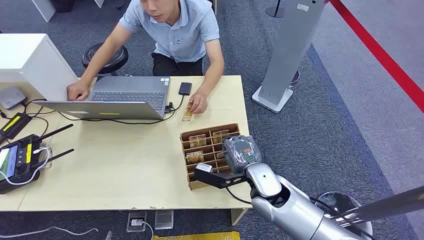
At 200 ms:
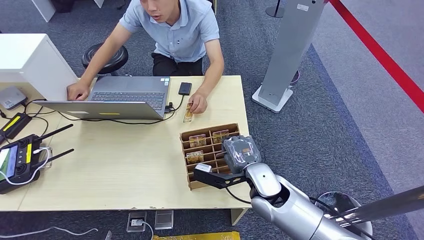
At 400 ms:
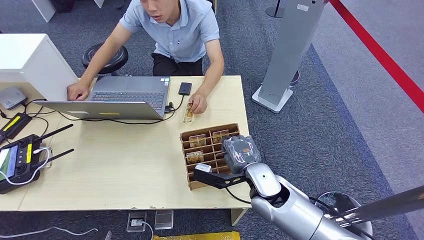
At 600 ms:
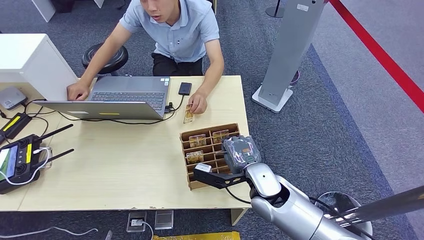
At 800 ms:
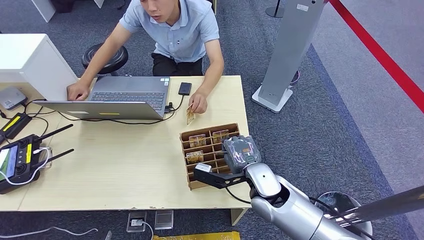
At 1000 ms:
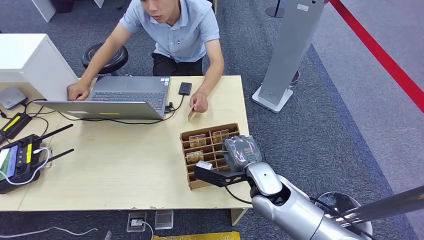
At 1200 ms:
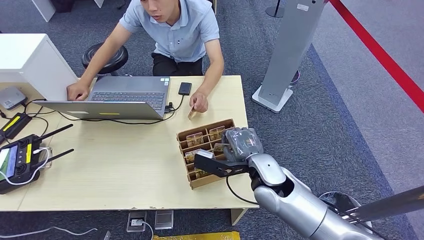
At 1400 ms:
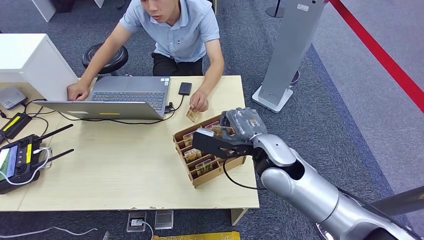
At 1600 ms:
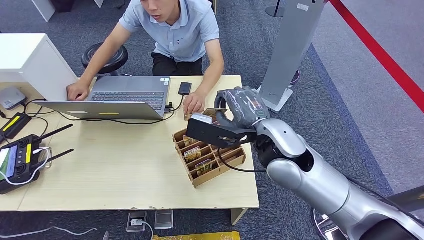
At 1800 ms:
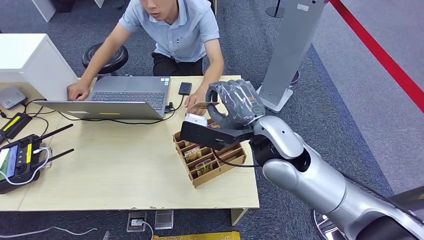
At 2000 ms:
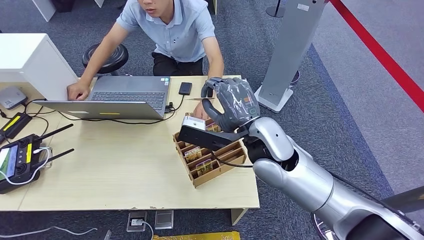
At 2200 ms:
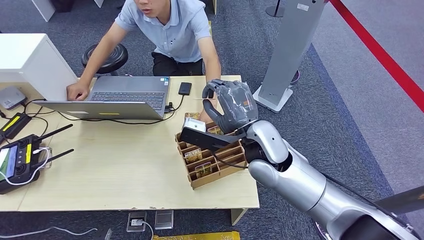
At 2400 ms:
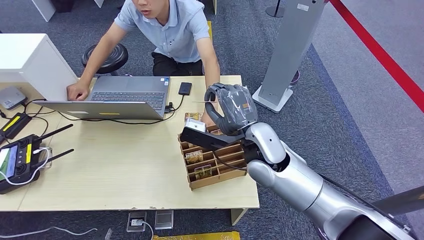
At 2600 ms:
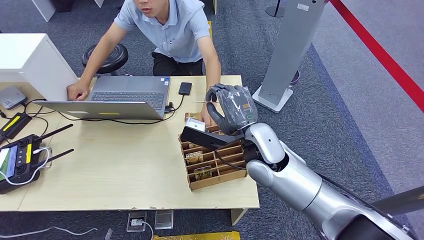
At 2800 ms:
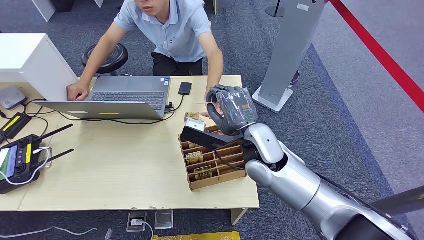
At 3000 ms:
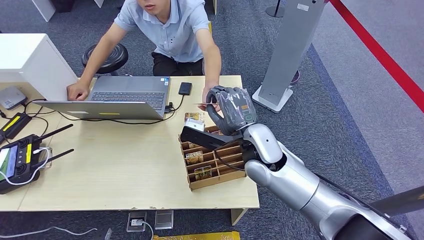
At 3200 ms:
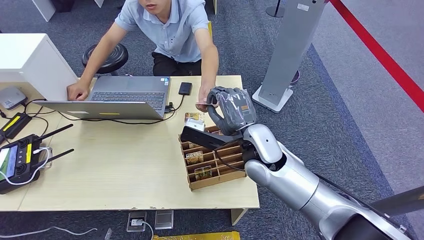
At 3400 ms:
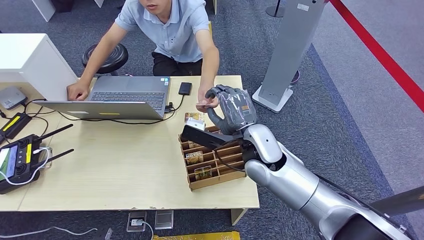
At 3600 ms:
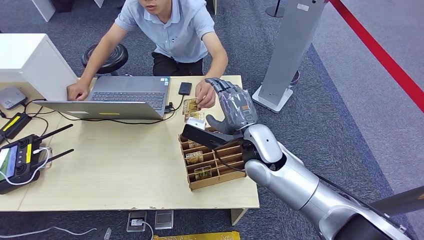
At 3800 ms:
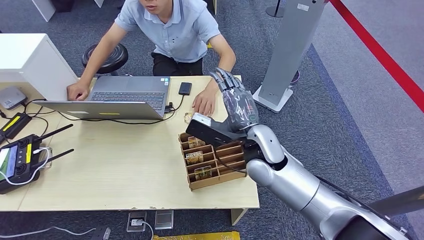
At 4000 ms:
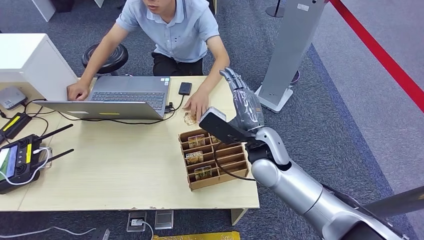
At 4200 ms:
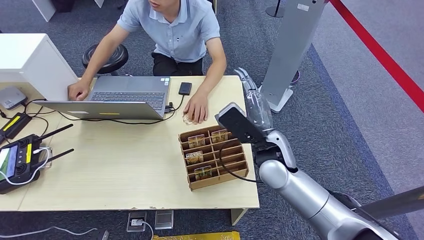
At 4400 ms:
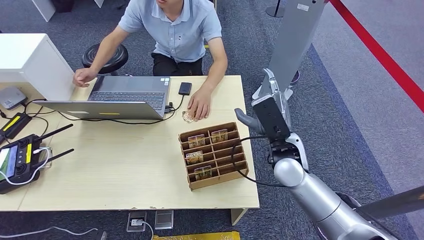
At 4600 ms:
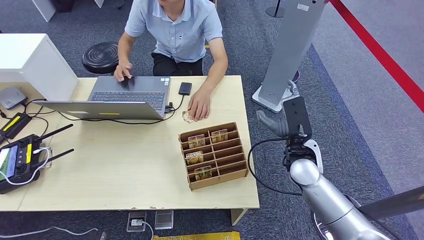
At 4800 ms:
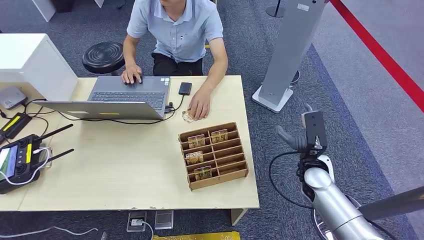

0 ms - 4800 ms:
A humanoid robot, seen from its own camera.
Step, 0 ms - 1800 ms: Pick up the key card from the card box.
Step, 2200 ms - 4600 ms: Hand the key card to the target.
1600 ms - 3200 ms: The right hand goes approximately 5 cm downward.
3200 ms - 4800 ms: The right hand goes approximately 20 cm to the right and downward.

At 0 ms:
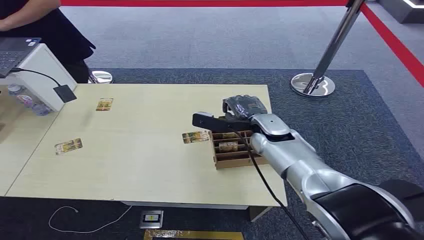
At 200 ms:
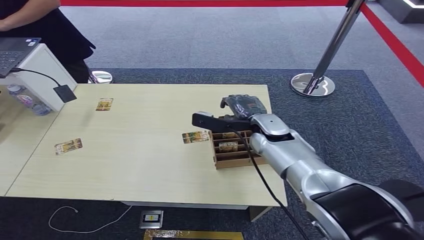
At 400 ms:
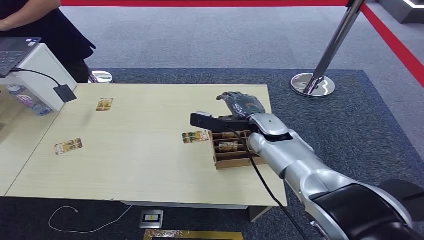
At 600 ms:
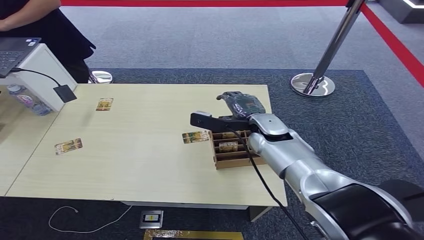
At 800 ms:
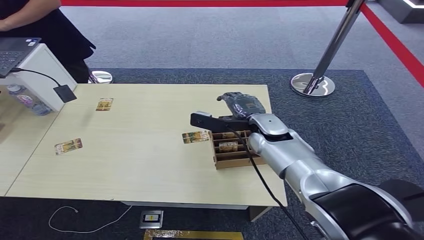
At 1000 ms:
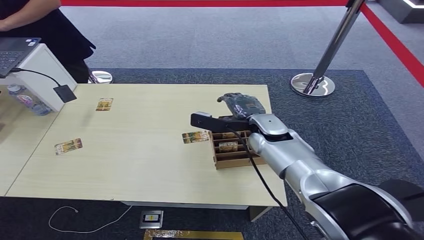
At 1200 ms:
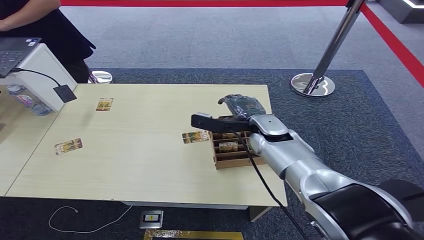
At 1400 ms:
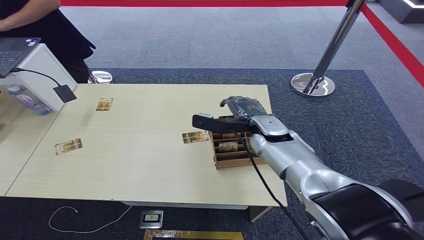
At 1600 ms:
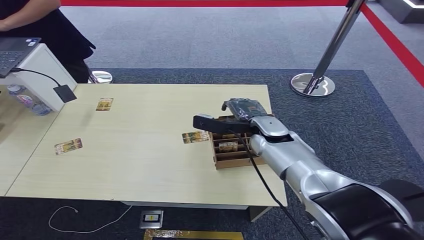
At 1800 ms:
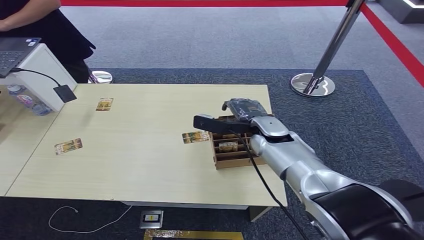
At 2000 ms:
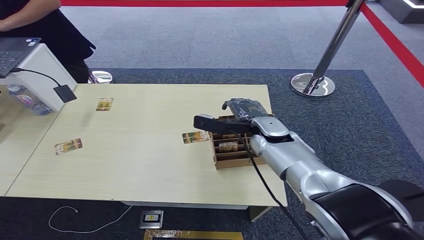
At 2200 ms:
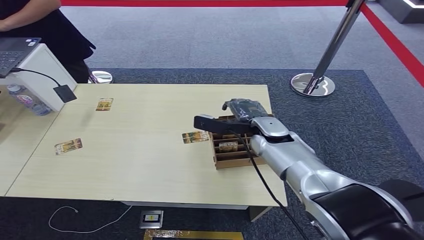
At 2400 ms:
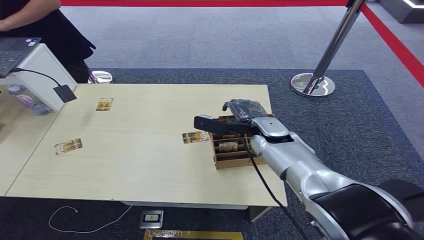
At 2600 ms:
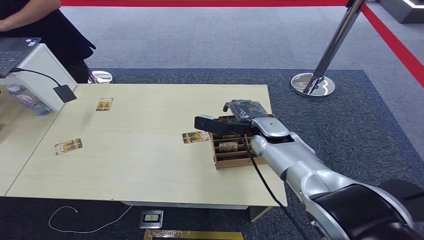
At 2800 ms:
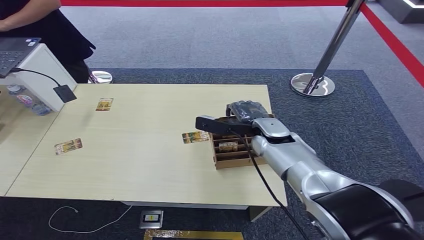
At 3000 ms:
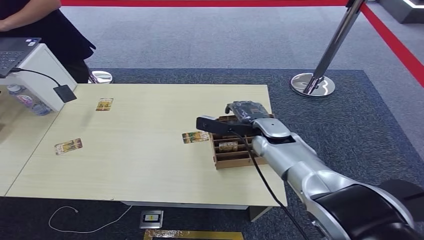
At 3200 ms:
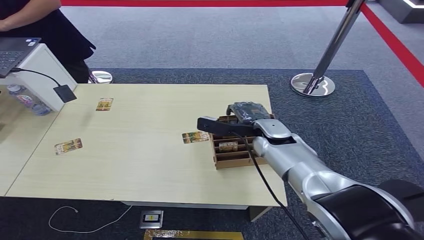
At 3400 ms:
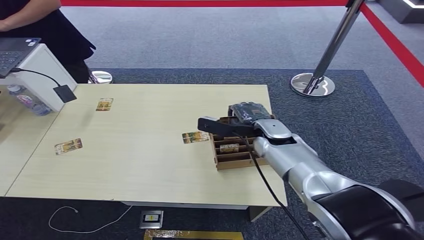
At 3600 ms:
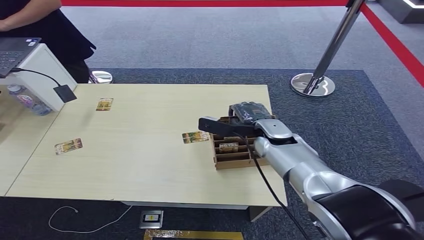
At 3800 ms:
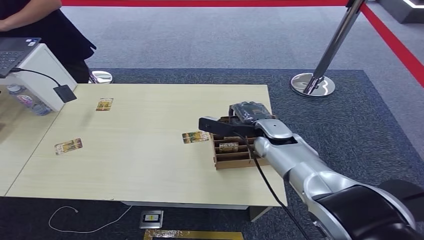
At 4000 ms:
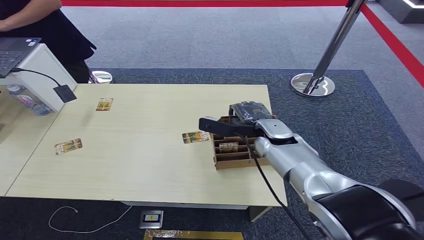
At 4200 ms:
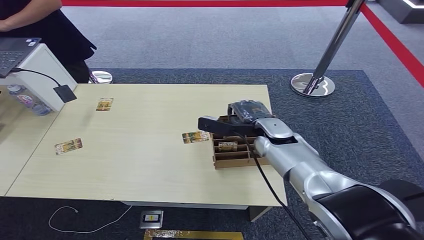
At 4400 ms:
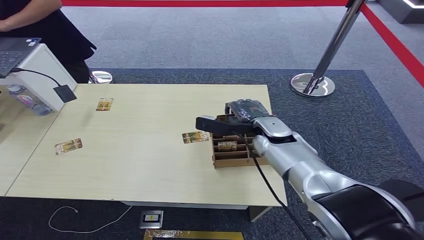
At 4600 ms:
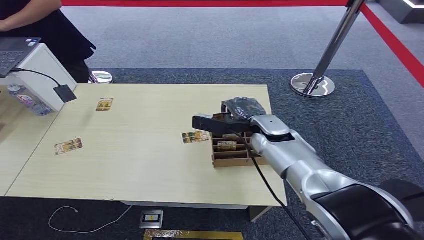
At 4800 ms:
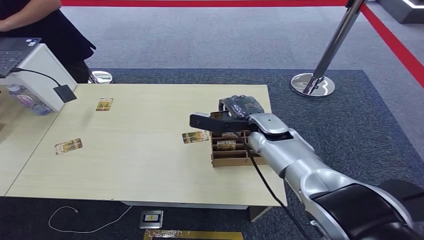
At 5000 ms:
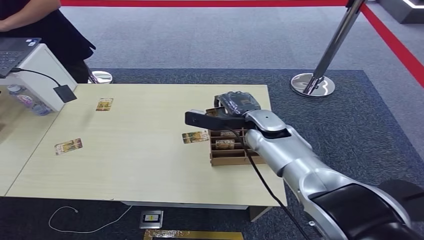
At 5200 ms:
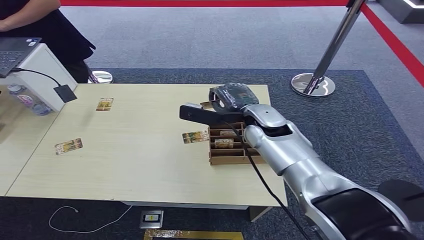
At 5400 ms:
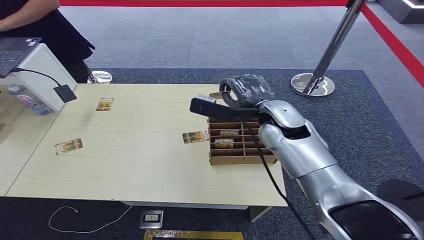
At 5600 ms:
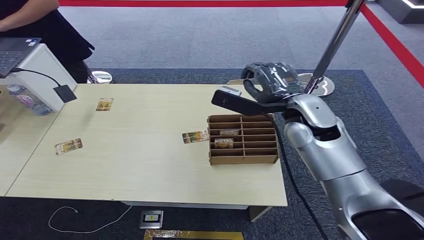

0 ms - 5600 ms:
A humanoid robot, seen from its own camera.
Step, 0 ms - 5600 ms: Pick up the key card from the card box.
1400 ms - 2800 ms: Both hands stay put.
2800 ms - 4200 ms: Both hands stay about where they are.
4200 ms - 5600 ms: The right hand is displaced upward by roughly 10 cm.
